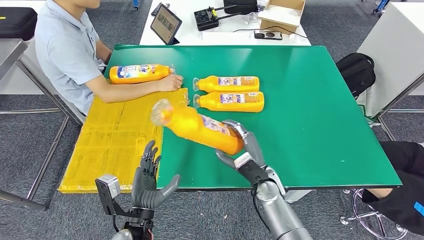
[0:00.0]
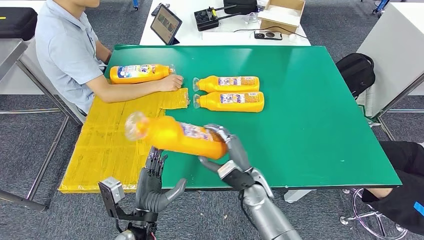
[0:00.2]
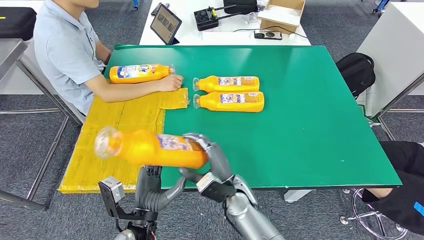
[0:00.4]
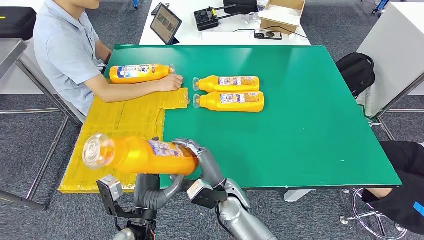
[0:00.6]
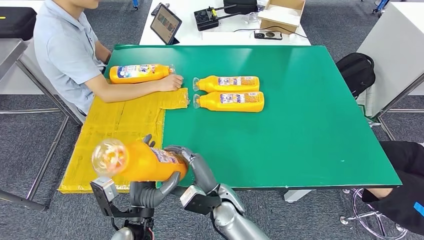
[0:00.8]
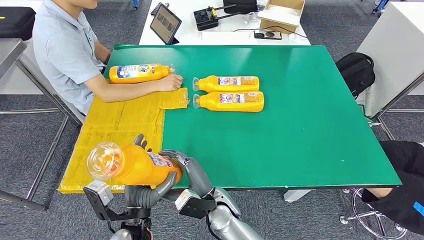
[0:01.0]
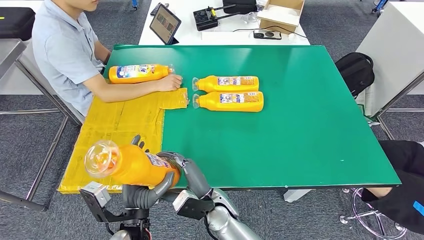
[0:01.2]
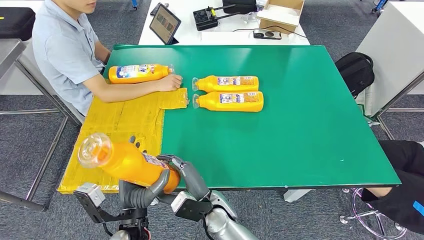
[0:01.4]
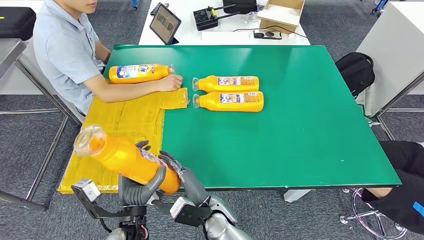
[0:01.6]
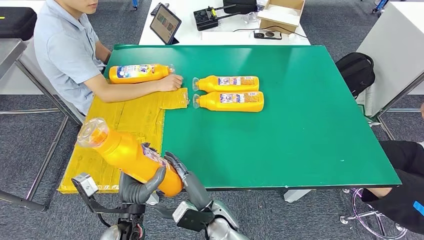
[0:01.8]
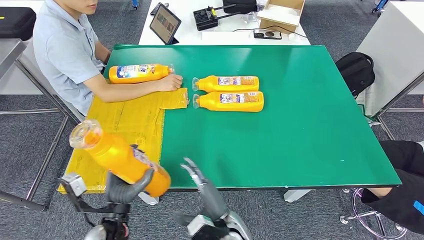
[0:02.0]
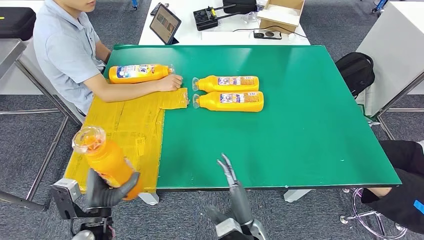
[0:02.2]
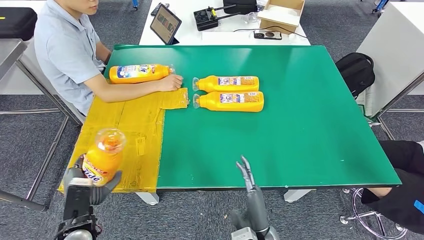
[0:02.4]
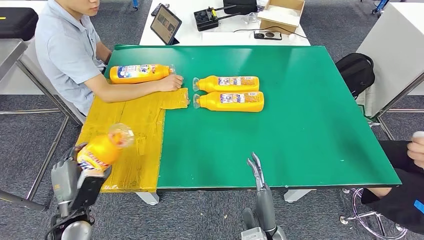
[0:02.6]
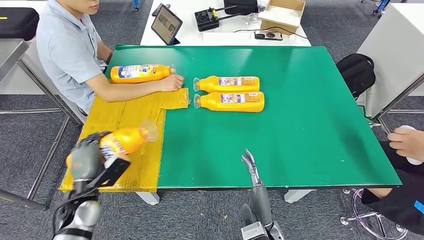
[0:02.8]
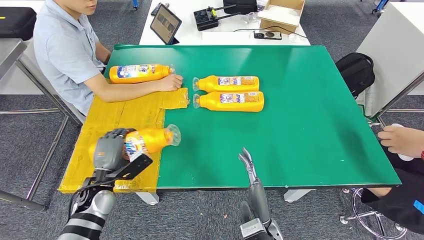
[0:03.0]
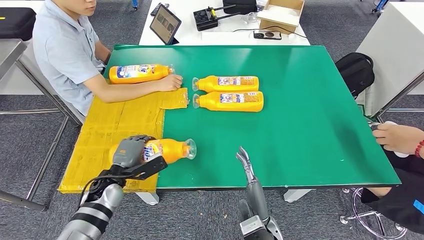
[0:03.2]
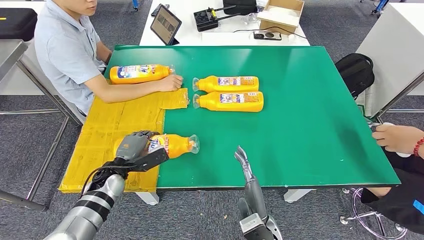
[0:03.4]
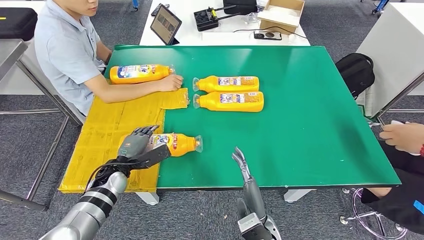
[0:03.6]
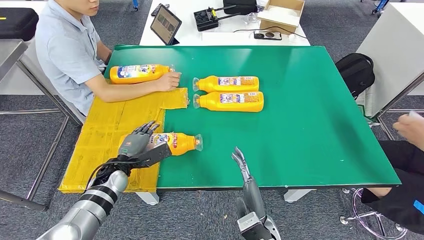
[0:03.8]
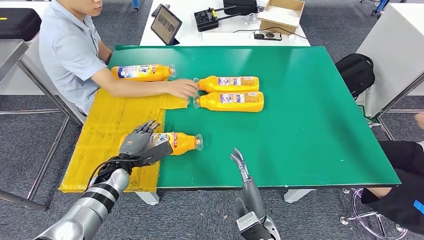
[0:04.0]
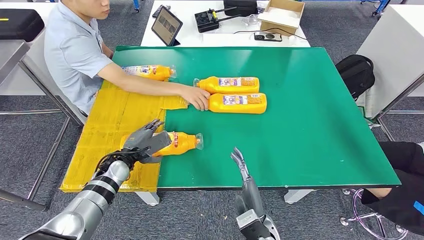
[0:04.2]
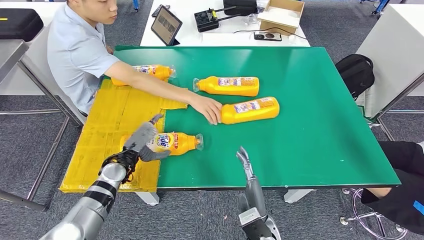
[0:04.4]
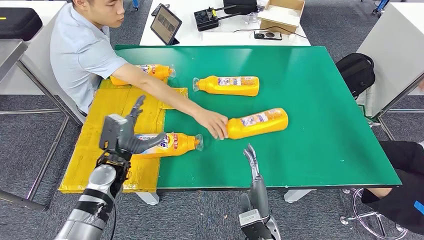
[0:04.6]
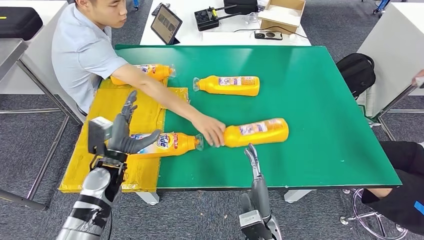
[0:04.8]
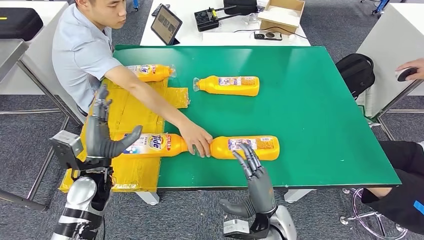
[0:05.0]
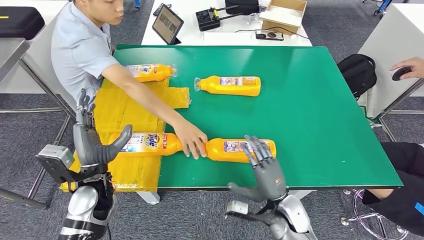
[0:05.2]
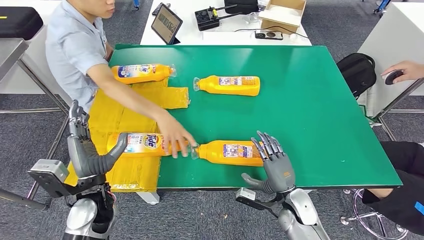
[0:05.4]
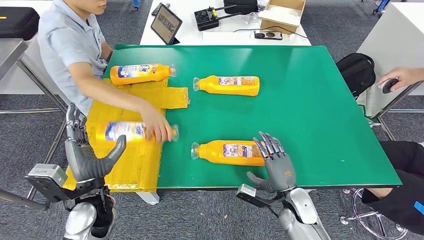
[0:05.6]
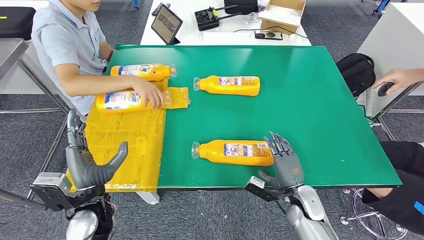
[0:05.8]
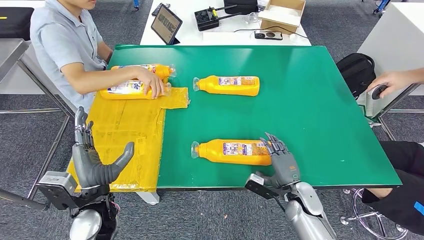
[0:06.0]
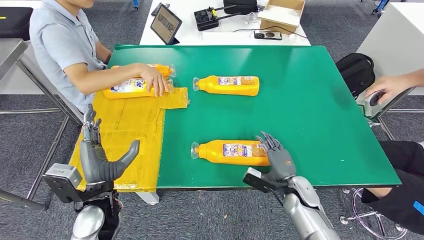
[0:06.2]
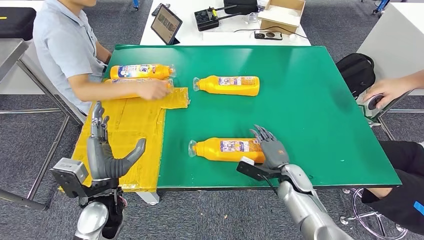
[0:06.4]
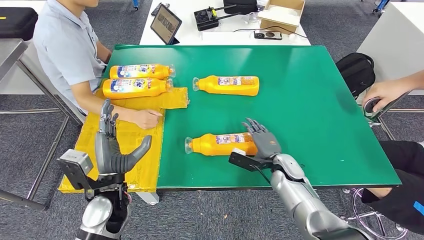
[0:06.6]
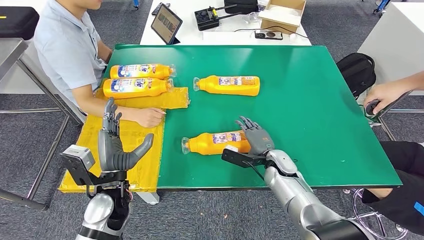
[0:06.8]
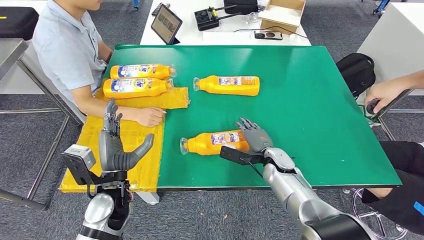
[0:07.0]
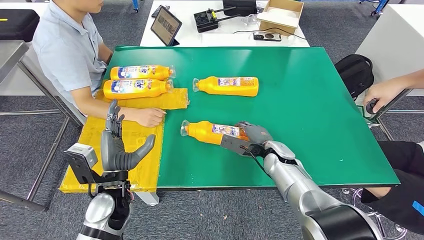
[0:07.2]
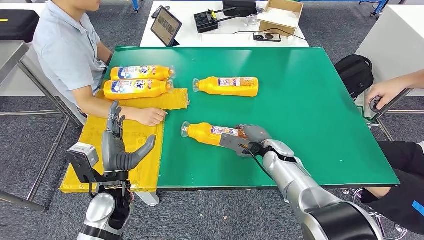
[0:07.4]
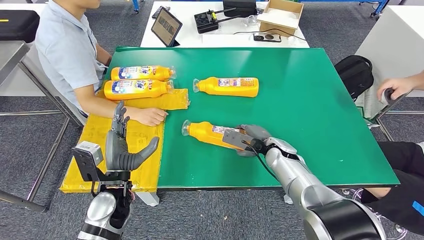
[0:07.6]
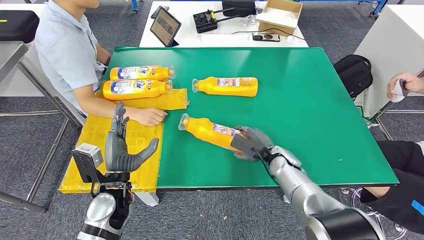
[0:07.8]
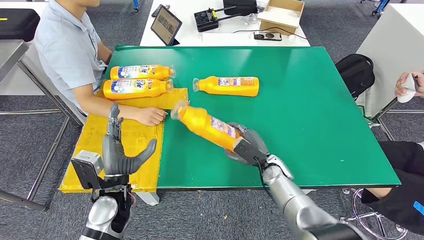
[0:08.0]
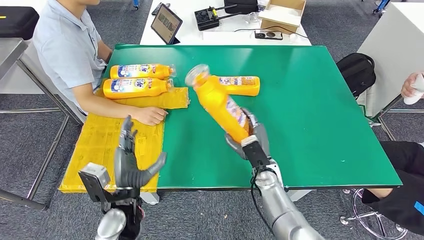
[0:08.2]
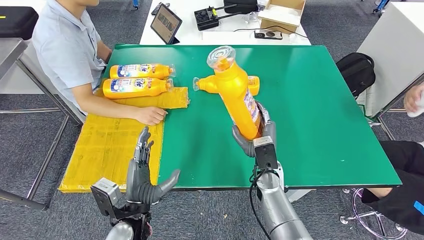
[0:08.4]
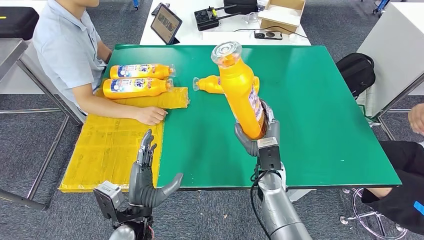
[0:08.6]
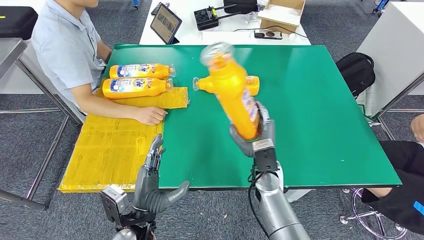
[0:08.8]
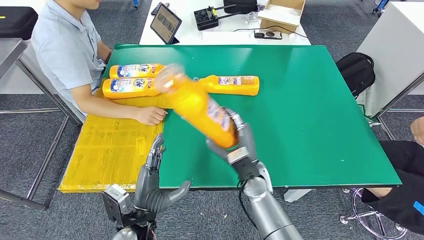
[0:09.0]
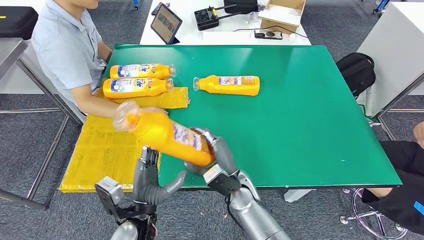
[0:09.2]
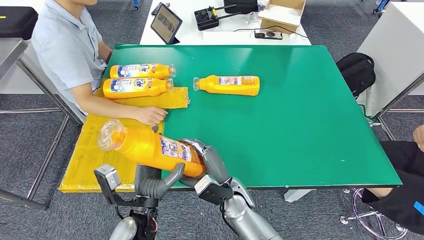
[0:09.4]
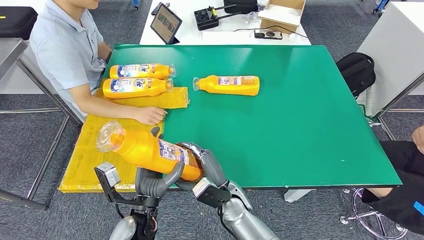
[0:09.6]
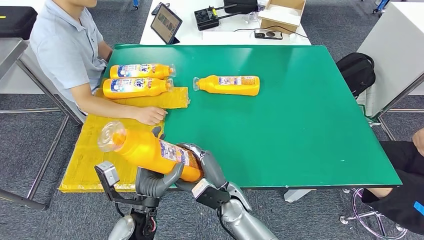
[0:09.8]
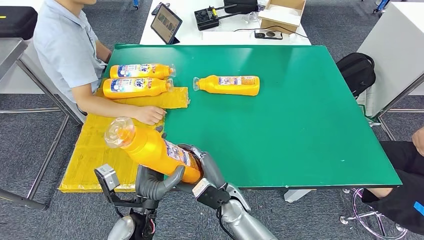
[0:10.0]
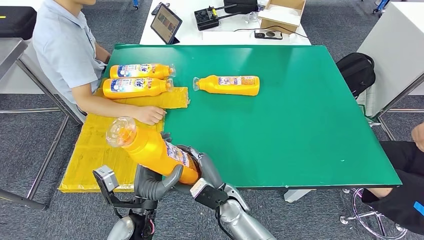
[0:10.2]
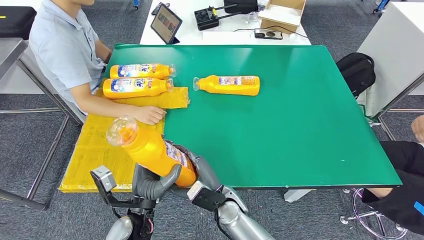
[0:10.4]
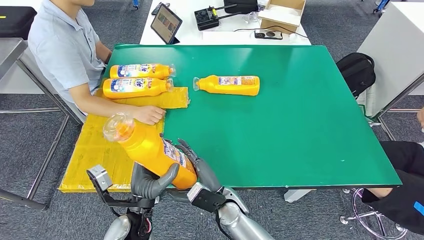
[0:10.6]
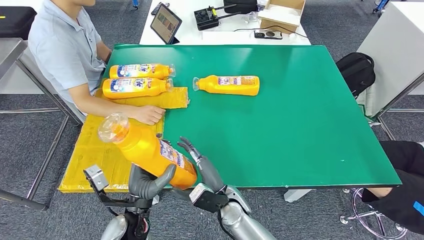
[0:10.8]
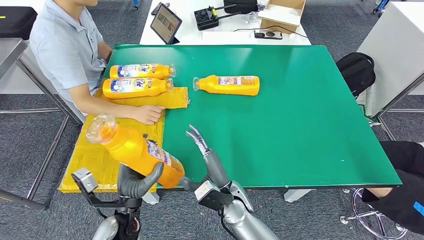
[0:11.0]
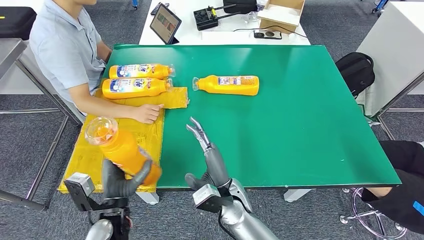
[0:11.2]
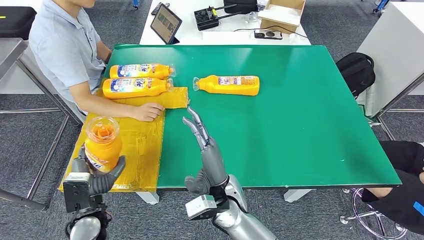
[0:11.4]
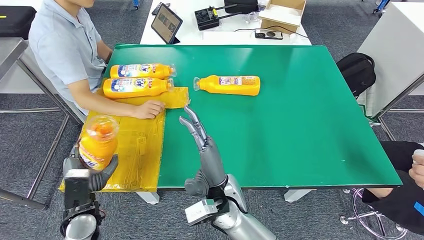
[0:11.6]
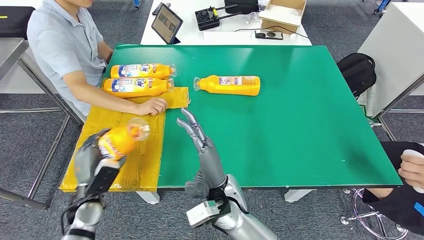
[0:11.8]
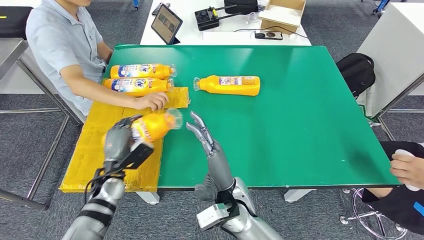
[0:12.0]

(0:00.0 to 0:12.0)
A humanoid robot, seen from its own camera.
Step, 0:01.0 - 0:05.0: Flip the fast-moving consumer goods bottle to the front side.
Step, 0:05.2 - 0:09.6: Pick up the fast-moving consumer goods bottle from the table.
0:00.0 - 0:01.6: The right hand is displaced to the left and backward by some 15 cm.
0:01.6 - 0:03.0: The left hand shifts some 15 cm to the left and forward; the right hand travels to the right and backward by approximately 15 cm.
0:09.0 - 0:10.4: The right hand shifts some 10 cm to the left and backward.
0:10.4 - 0:12.0: The left hand travels forward and to the left by roughly 15 cm, while the right hand is displaced upward by roughly 10 cm.

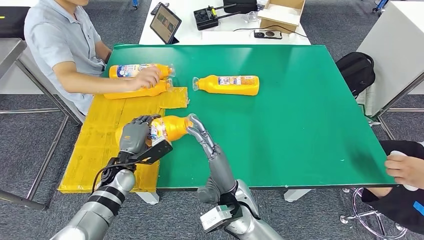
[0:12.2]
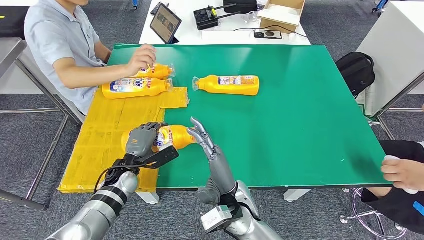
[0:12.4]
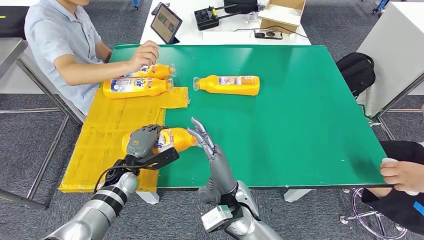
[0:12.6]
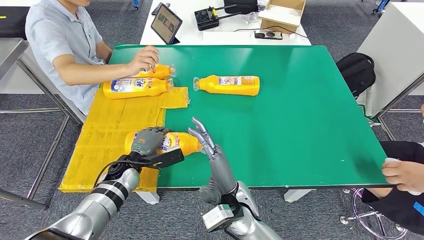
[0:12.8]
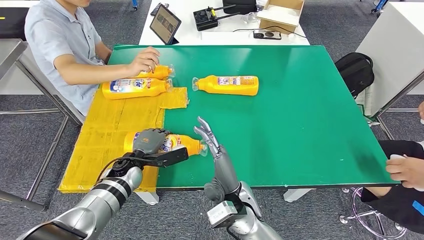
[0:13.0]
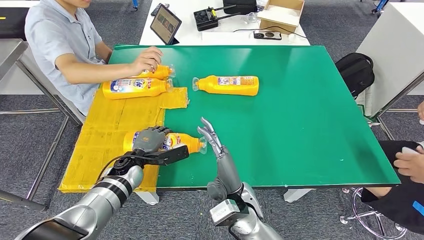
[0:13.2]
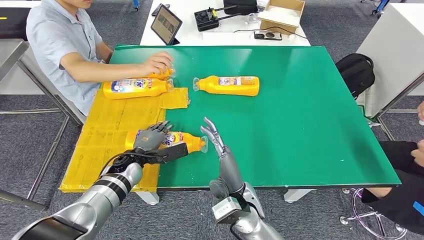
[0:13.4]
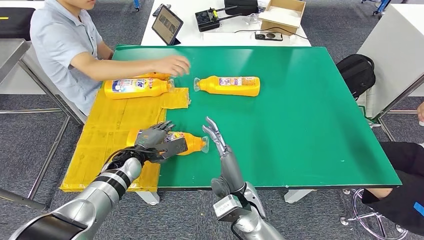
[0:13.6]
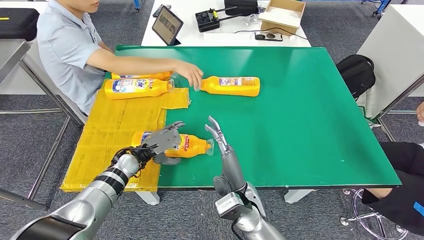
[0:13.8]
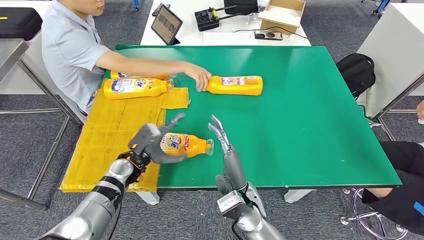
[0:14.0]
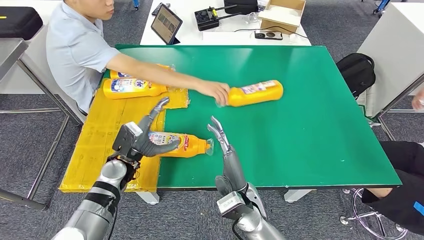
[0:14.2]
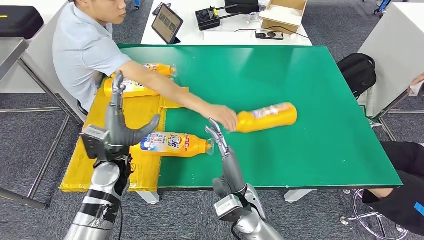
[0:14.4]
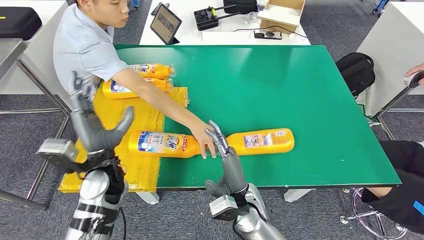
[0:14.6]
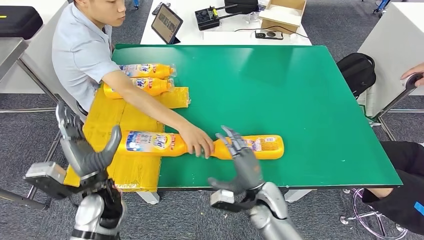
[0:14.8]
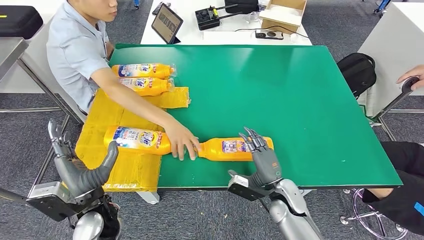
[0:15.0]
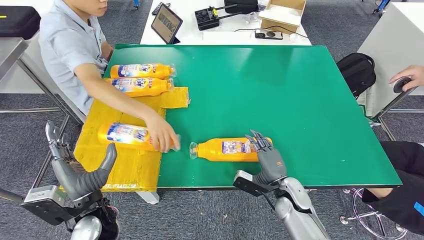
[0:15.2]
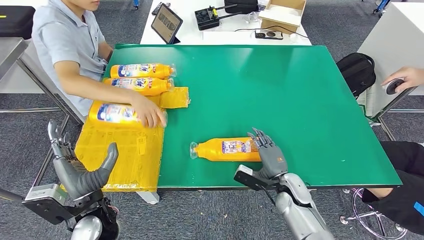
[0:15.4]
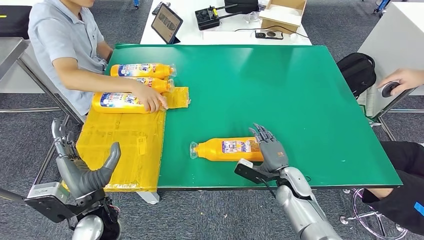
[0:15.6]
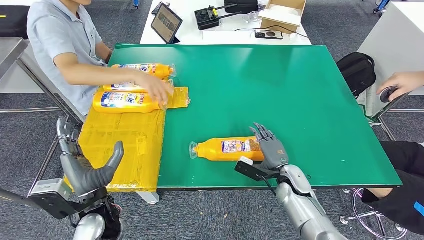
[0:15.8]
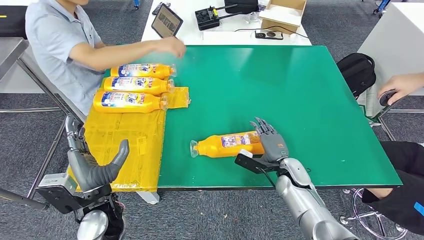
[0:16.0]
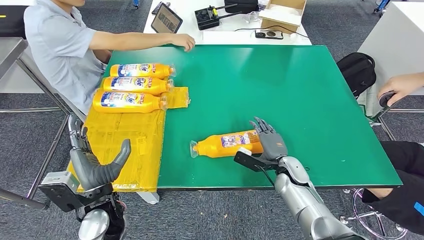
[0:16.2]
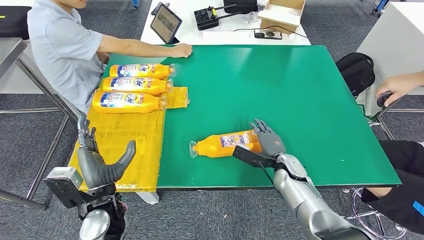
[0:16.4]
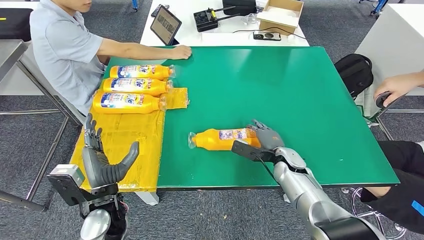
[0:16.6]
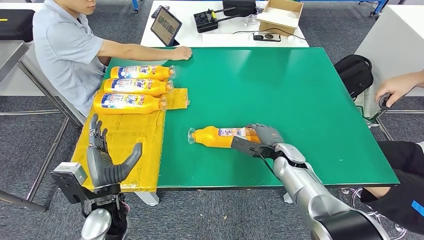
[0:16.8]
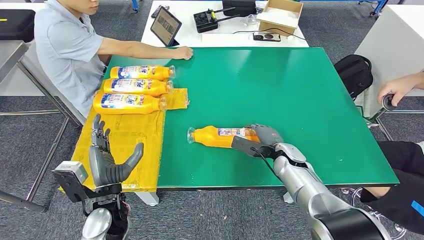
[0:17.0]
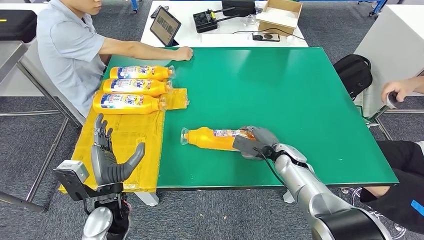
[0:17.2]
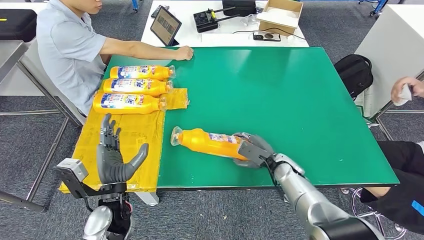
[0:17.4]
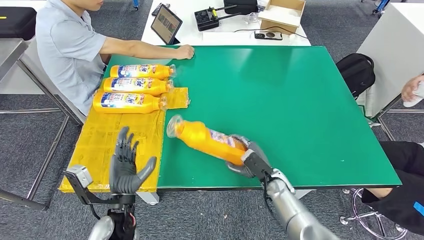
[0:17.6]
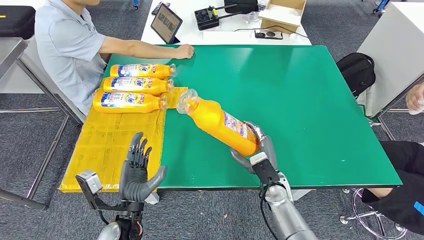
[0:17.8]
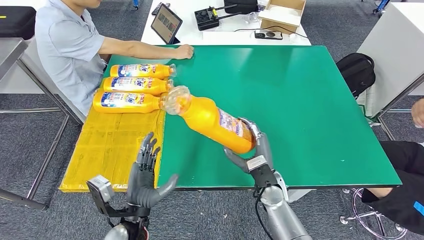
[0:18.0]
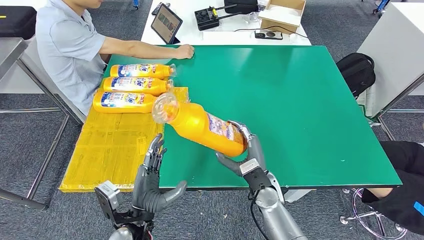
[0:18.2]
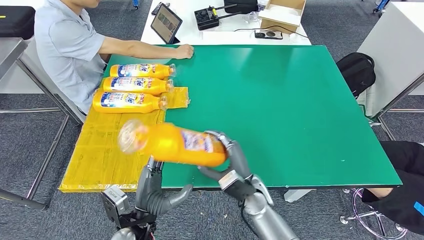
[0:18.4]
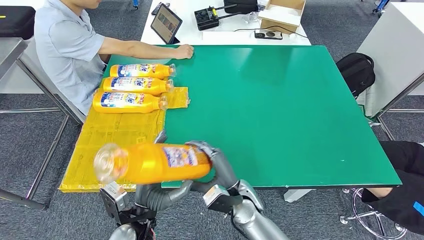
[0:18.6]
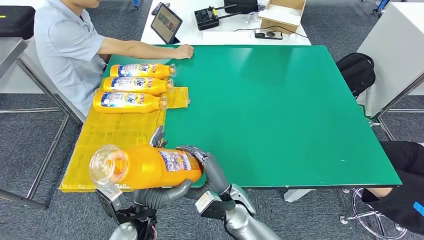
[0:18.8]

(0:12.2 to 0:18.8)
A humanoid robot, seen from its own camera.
Step, 0:12.2 - 0:14.4: Flip the fast-moving consumer goods bottle to the front side.
